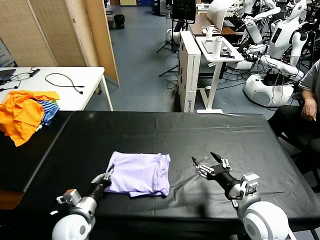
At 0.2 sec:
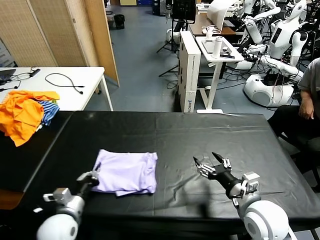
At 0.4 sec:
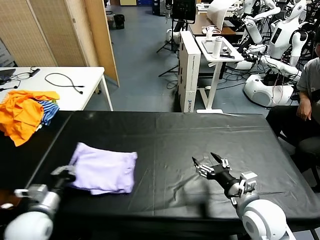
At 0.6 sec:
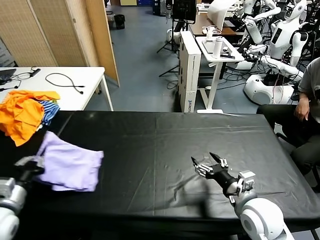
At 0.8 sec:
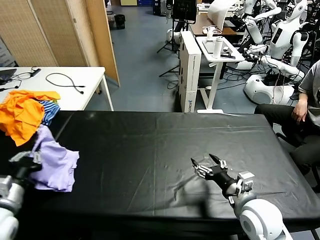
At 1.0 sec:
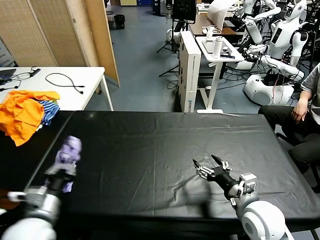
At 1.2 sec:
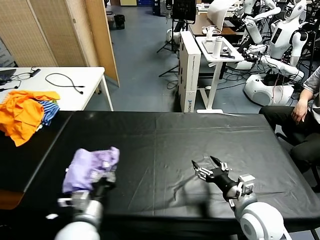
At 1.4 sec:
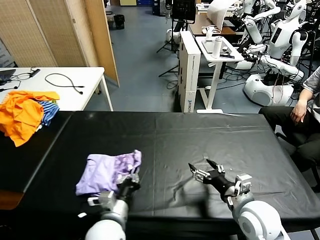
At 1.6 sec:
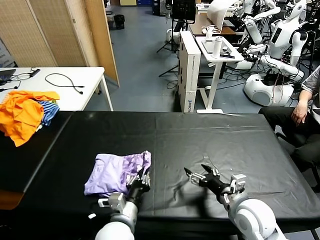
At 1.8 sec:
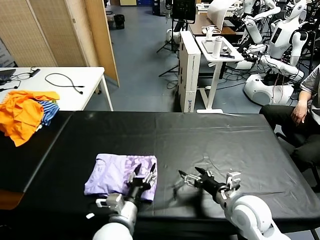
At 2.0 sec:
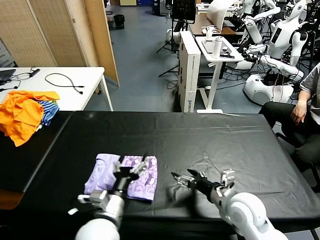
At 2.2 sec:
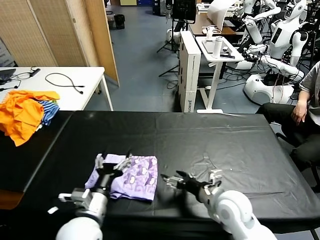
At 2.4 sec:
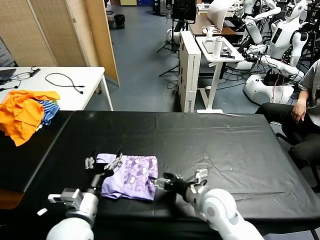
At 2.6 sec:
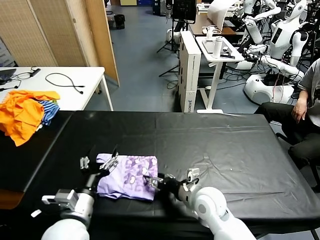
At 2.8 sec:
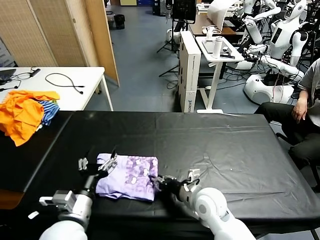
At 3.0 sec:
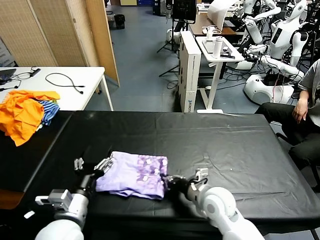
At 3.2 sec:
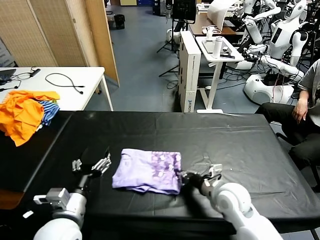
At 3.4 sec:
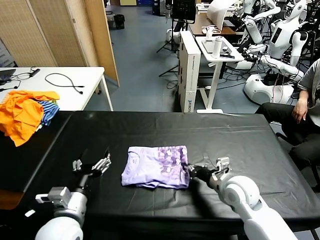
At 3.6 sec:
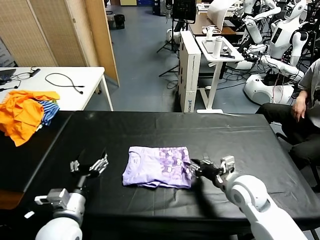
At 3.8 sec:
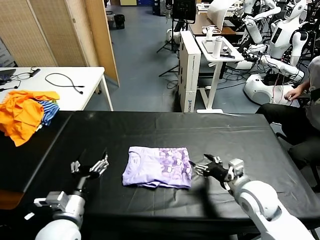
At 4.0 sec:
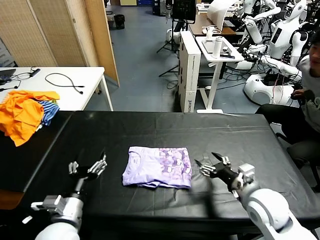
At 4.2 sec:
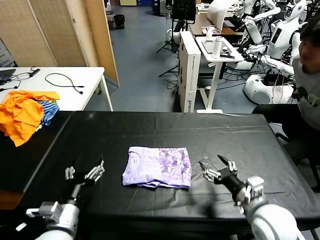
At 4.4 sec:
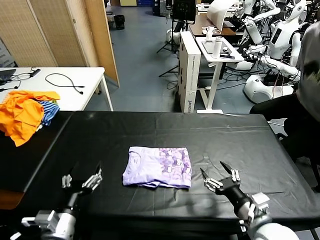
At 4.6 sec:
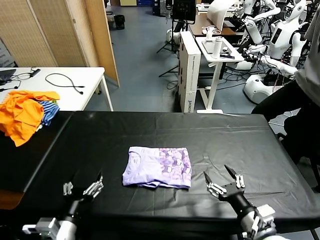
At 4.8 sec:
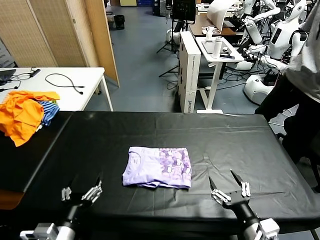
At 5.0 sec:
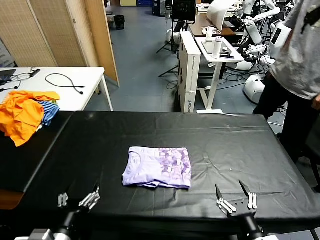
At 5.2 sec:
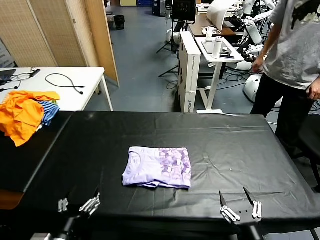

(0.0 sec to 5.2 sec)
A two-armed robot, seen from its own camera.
Task of the whole recording: fold and organize the clothes.
Step, 0.0 sec - 1.8 sec: Flip the folded clothes over with left gripper.
Step, 2.2 sec - 3.6 sec: Drag the clothes to the center of the table.
0.0 sec - 1.8 sec: The left gripper travels to the right by about 15 cm, and opens up.
1.8 sec - 3.4 sec: The right gripper travels forward by some 5 cm, reaches some 10 cm to the left, then returns, and closes, while the left gripper is displaced to the left and upward by some 15 cm, and opens its fingers.
3.4 sec - 5.2 sec: The right gripper travels backward by some 25 cm, and opens its fingers, while the left gripper moves backward, about 10 cm.

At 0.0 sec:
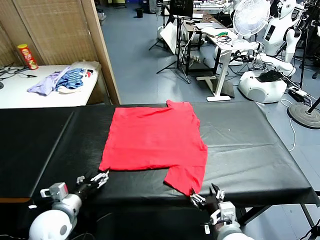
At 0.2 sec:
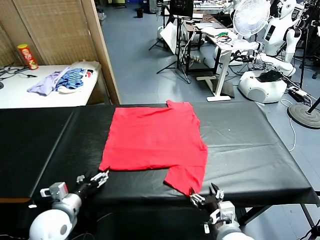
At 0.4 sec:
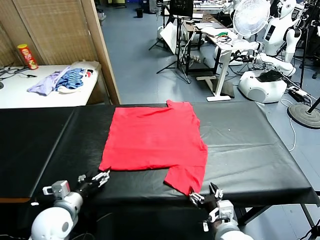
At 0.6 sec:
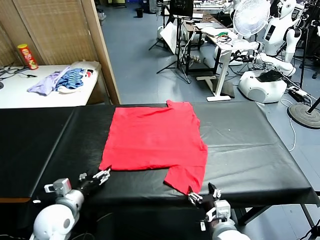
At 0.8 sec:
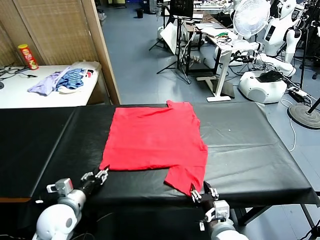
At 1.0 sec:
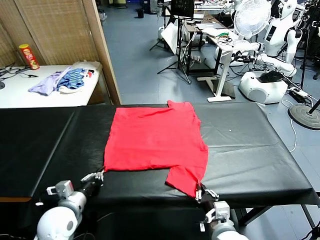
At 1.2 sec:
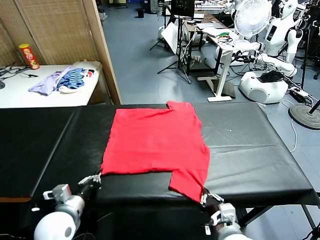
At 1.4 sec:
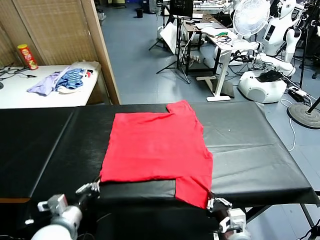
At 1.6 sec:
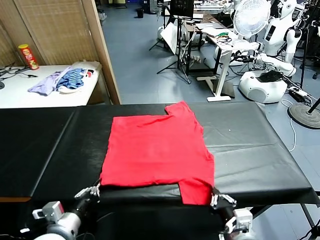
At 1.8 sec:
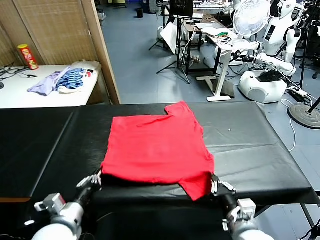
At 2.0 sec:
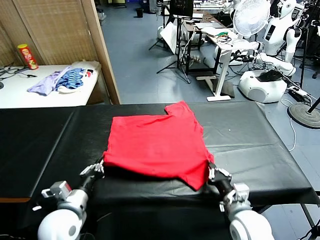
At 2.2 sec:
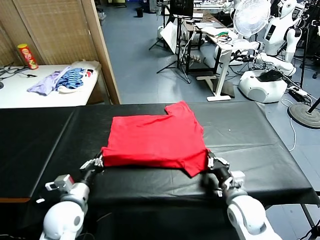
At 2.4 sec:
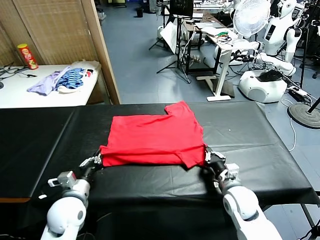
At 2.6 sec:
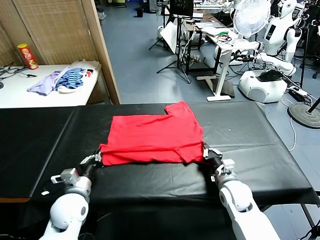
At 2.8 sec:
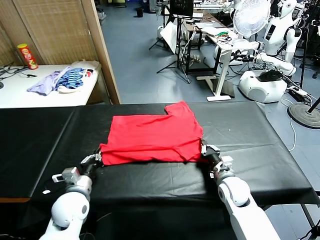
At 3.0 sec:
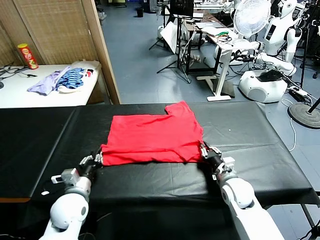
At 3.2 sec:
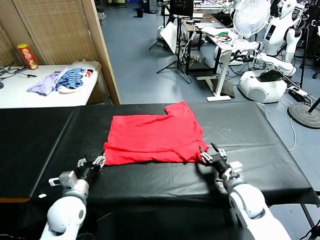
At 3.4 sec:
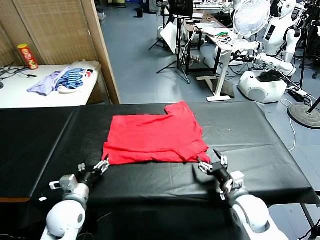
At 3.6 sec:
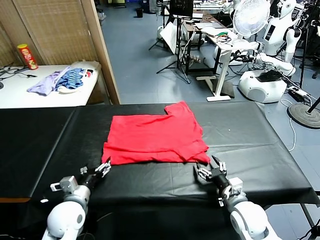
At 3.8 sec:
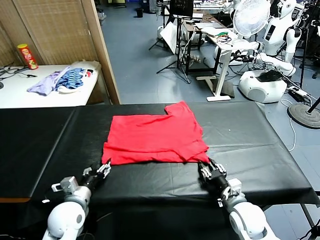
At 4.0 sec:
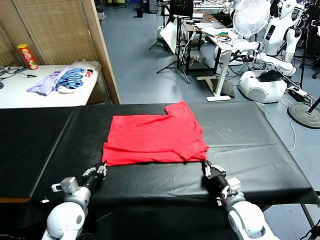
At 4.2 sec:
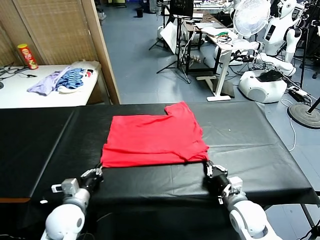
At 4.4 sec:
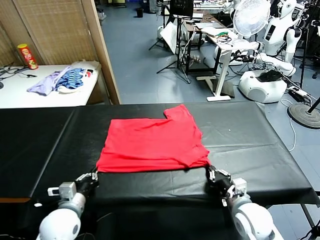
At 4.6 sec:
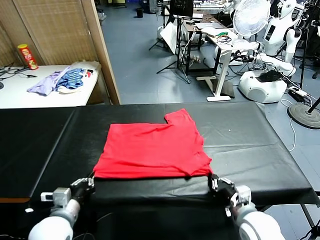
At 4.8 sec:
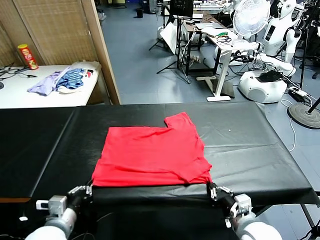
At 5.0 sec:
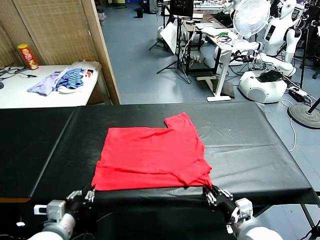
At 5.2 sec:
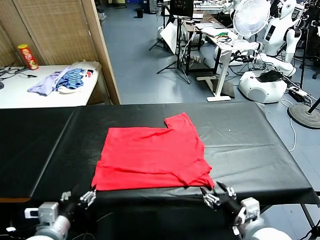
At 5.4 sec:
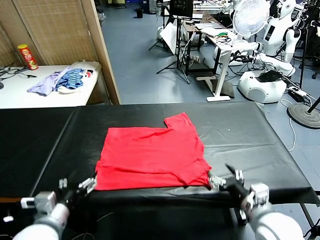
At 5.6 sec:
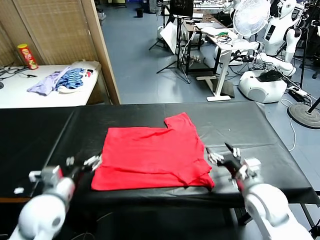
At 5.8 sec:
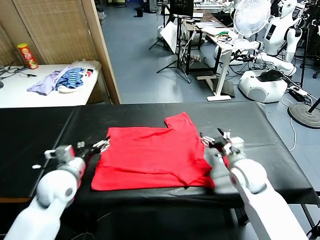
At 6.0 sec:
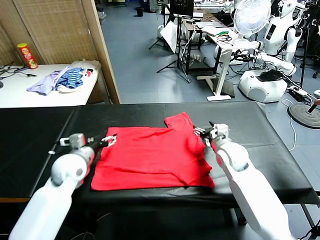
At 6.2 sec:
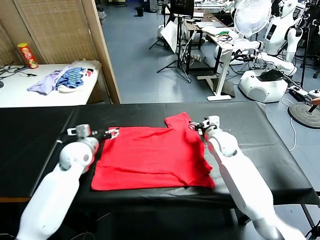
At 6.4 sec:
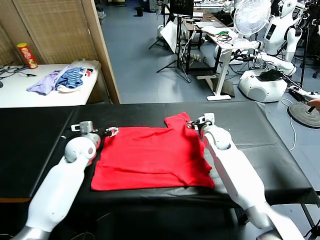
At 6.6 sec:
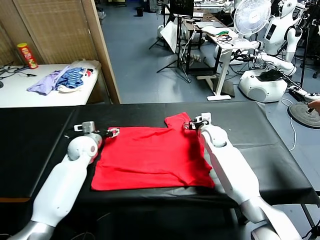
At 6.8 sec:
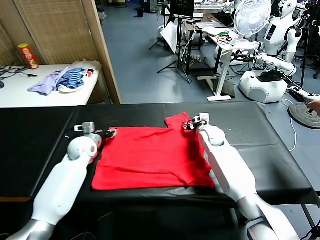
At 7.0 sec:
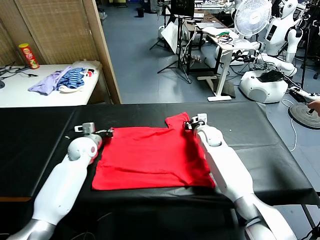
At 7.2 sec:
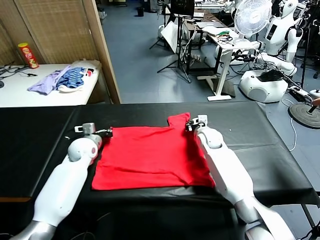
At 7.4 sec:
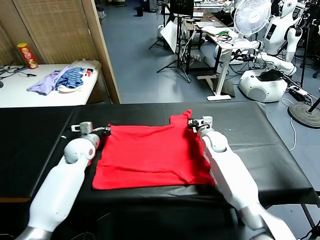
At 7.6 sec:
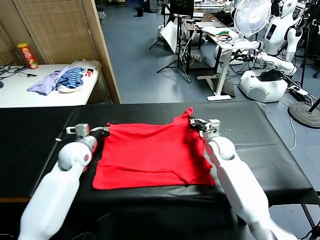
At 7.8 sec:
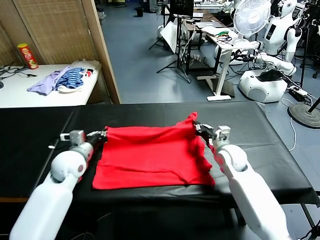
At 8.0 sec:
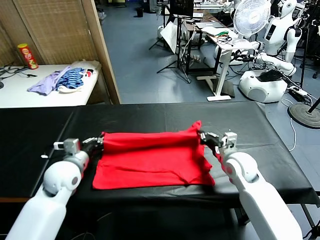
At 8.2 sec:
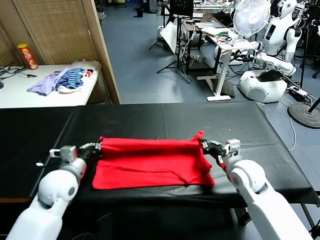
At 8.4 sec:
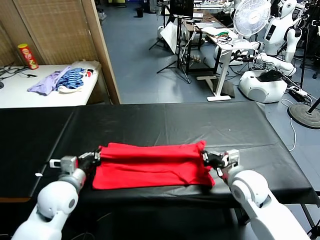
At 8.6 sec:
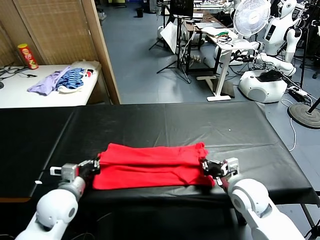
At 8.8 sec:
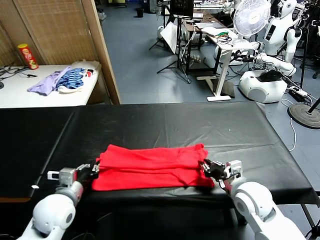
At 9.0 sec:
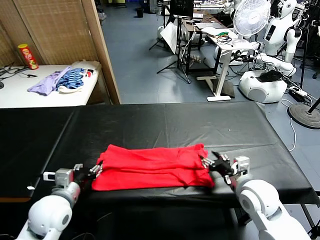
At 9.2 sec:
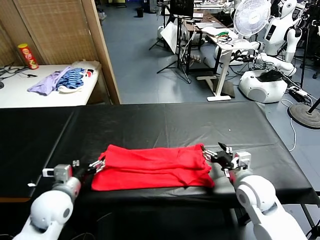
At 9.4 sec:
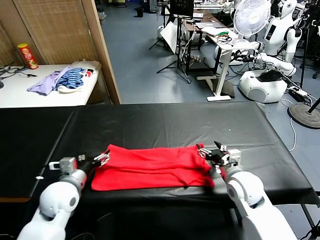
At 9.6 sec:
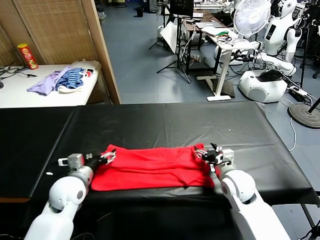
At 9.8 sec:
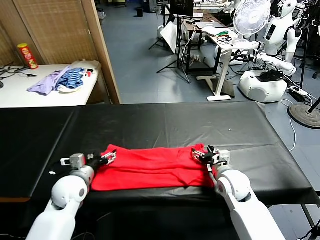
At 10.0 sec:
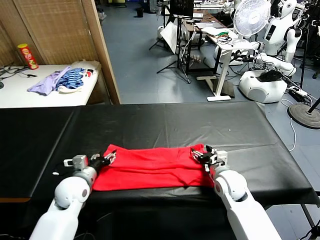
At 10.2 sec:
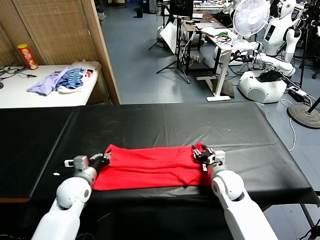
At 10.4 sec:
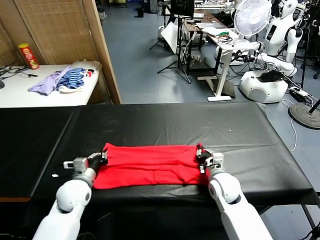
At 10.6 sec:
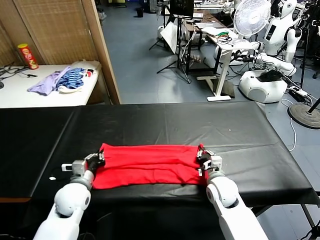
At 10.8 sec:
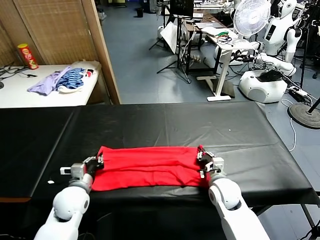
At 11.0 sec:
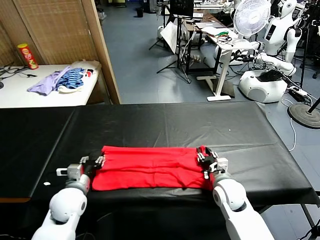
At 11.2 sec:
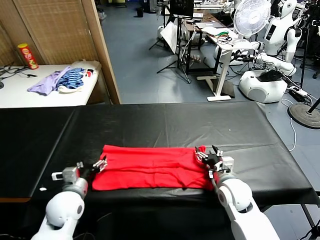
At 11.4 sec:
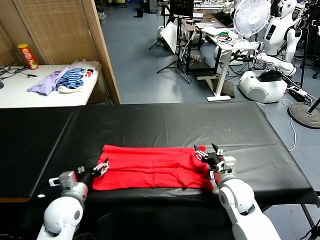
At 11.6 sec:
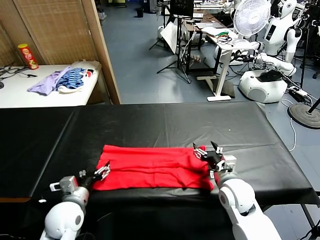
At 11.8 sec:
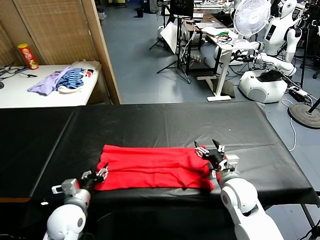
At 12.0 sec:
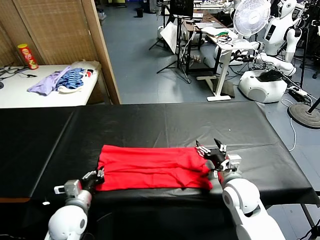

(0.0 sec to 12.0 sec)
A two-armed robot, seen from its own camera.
Task of the whole recording: fold and organize the clothes.
Step, 0.0 sec - 1.6 sec: use both grippers simultaneously to clamp the lower edge of the clothing fabric.
Step, 1.8 sec - 3.2 sec: use both grippers to drag the lower edge of the fabric forward and fold it over the upper edge.
Step, 3.4 sec - 5.0 sec: Drag the clothes downward with both gripper.
Step, 5.2 sec - 7.4 sec: use both grippers simultaneously to clamp the upper edge of the clothing fabric.
Step, 7.6 sec - 9.2 sec: use both grippers to drag the upper edge of the fabric backward and fold it over the lower edge.
1.6 sec - 3.0 sec: Both grippers travel together forward, approximately 10 cm. The right gripper opens. Meanwhile the left gripper opens up.
3.0 sec - 4.4 sec: The left gripper is displaced backward by approximately 5 cm, and closes; the right gripper travels backward by roughly 10 cm, and closes up.
4.4 sec - 6.0 sec: The right gripper goes roughly 30 cm forward, and opens up. Meanwhile the left gripper moves forward, about 20 cm, and opens its fingers.
6.0 sec - 7.6 sec: The left gripper travels forward and back again, approximately 10 cm each way, and closes up, while the right gripper goes approximately 5 cm backward, and closes up.
7.6 sec - 9.0 sec: Both grippers travel together backward, some 15 cm. The left gripper opens its fingers. The right gripper opens.
9.0 sec - 10.4 sec: The left gripper goes approximately 10 cm forward and downward, and closes its fingers, while the right gripper is displaced downward, to the left and forward by approximately 15 cm, and closes.
10.4 sec - 12.0 sec: The right gripper shifts approximately 5 cm upward, and opens, while the left gripper moves backward, roughly 10 cm, and opens, then closes again.

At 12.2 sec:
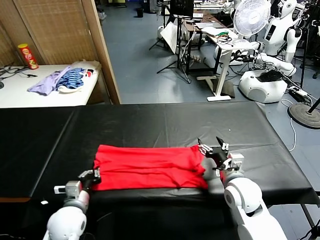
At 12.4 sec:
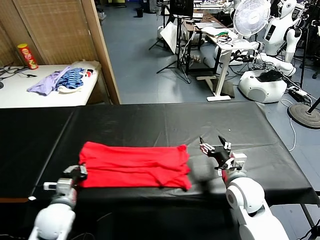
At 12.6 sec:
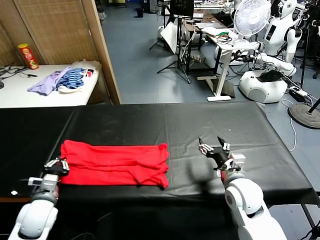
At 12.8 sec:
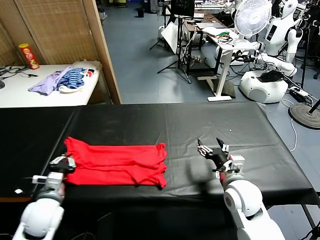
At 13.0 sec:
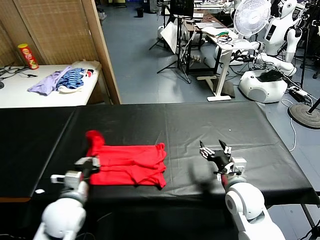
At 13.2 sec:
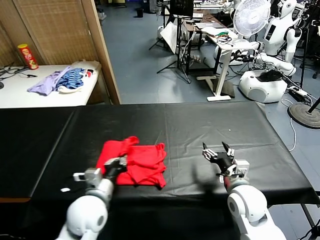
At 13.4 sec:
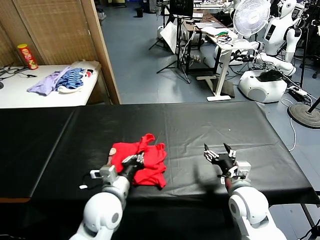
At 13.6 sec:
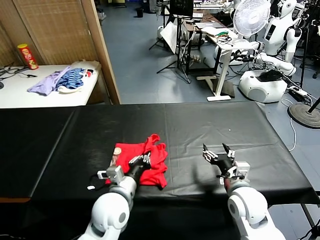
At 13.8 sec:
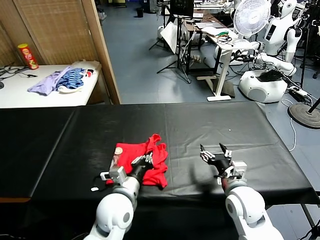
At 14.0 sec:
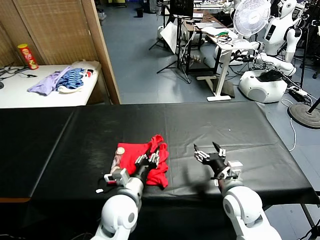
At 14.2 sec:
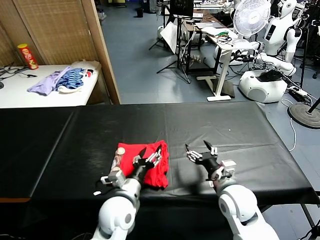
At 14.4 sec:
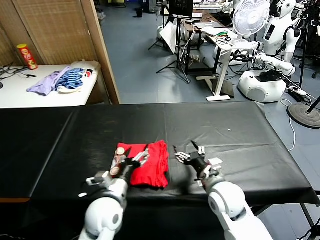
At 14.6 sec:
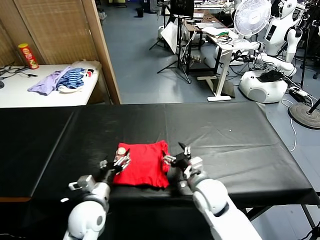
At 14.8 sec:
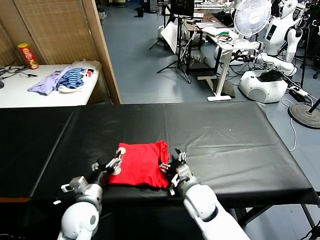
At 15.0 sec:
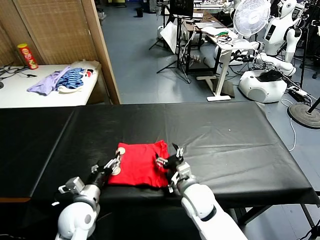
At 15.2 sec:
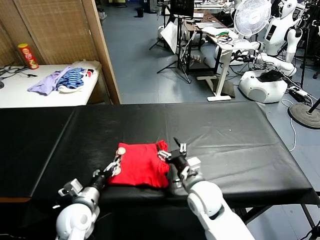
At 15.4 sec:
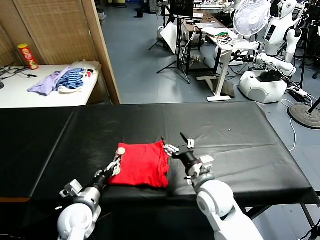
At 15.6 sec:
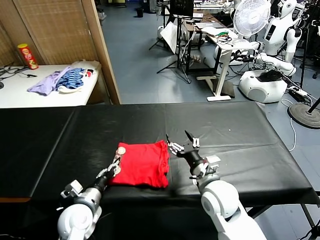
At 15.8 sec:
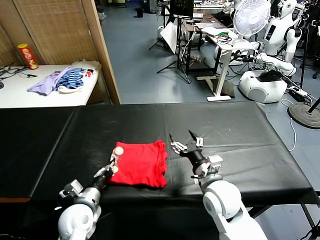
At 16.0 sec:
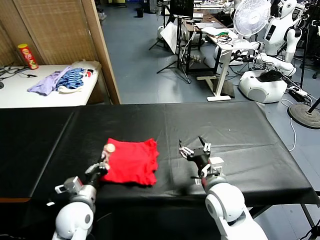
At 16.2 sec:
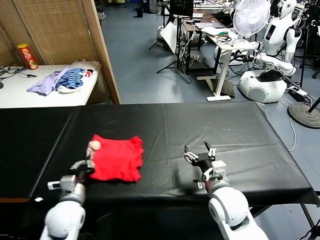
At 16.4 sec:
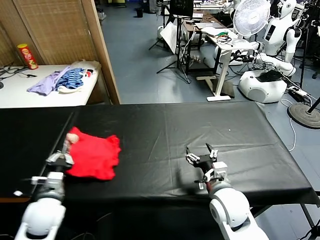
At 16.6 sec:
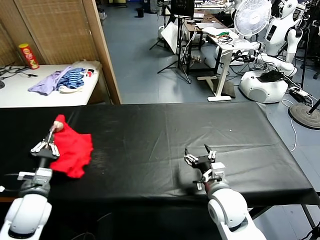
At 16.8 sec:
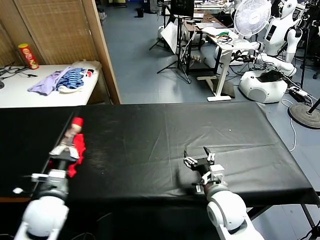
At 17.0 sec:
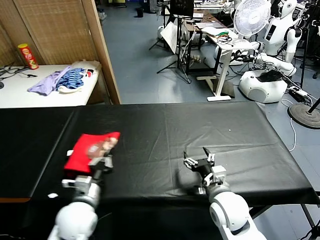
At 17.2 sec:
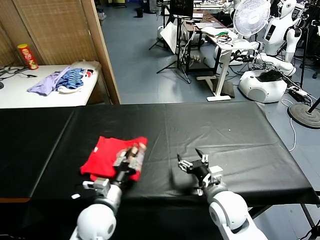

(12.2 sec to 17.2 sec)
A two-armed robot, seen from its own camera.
Task of the whole recording: fold and organize the clothes.
Step, 12.6 sec - 14.0 sec: use the left gripper to drag the left edge of the fabric to the left and folds it over the right edge.
12.2 sec - 13.8 sec: The left gripper moves to the right, roughly 15 cm.
13.8 sec - 15.6 sec: The right gripper is displaced to the left by roughly 5 cm, while the left gripper shifts about 15 cm to the left and downward, and opens.
15.6 sec - 17.2 sec: The left gripper heads to the right, covering approximately 5 cm.
